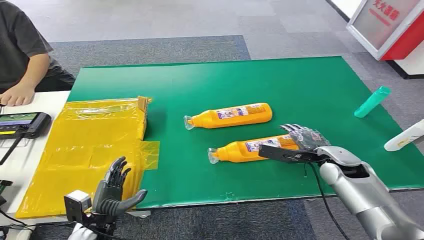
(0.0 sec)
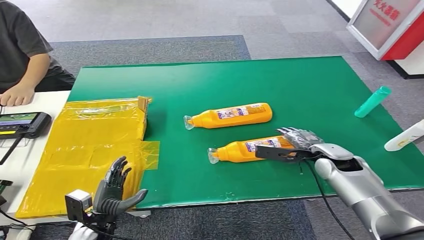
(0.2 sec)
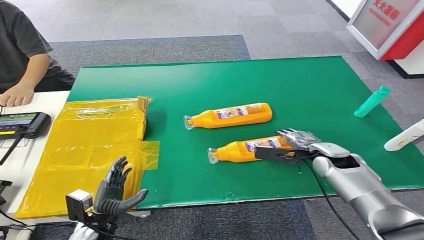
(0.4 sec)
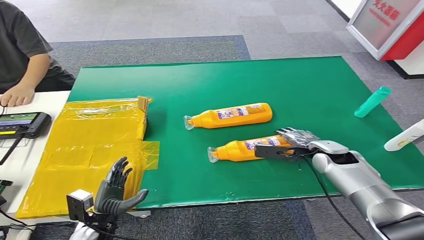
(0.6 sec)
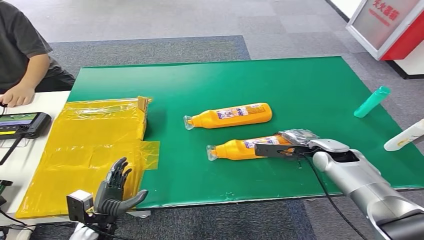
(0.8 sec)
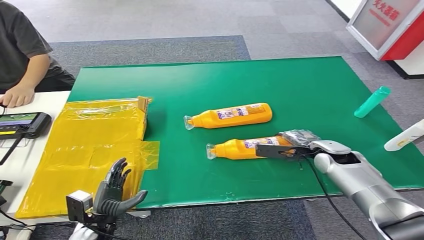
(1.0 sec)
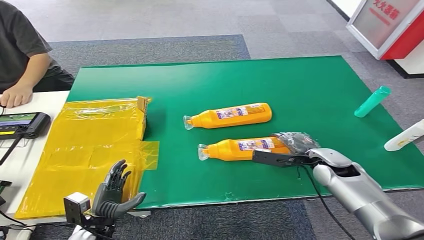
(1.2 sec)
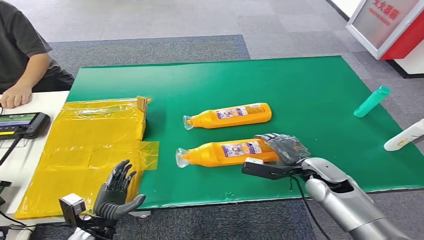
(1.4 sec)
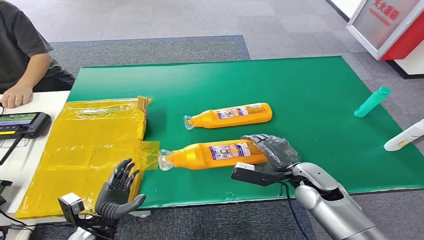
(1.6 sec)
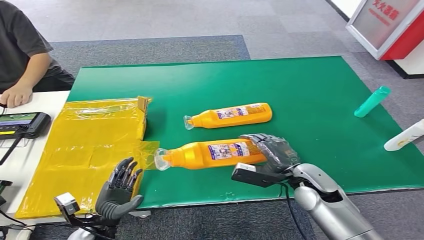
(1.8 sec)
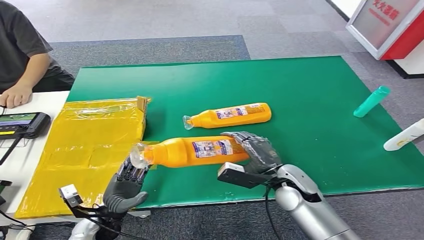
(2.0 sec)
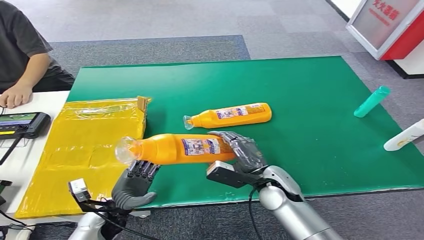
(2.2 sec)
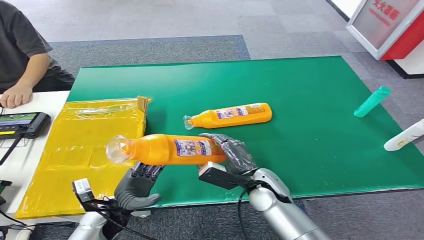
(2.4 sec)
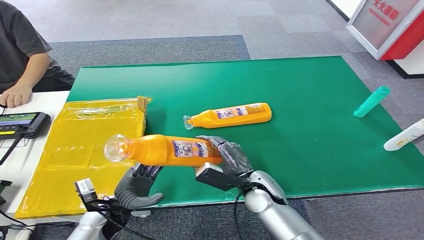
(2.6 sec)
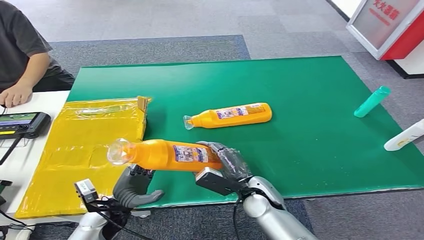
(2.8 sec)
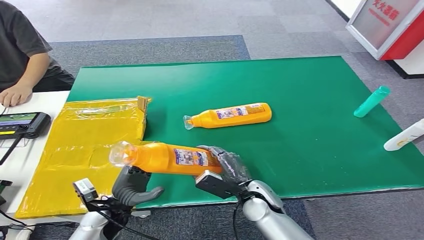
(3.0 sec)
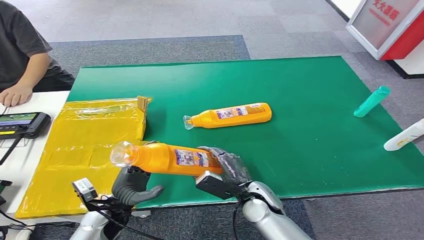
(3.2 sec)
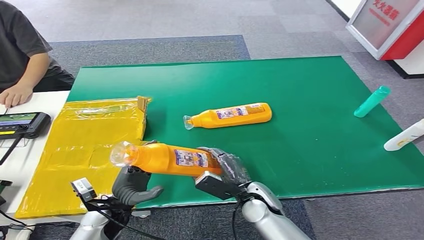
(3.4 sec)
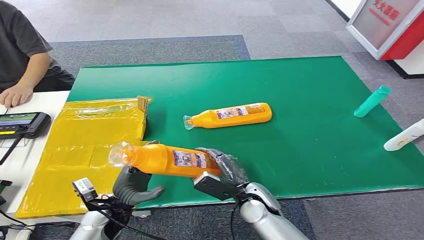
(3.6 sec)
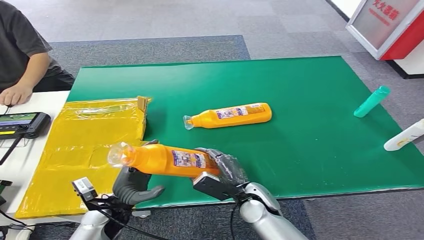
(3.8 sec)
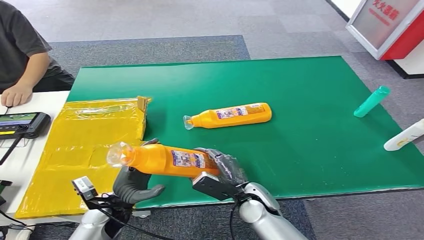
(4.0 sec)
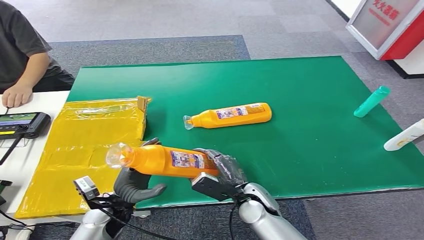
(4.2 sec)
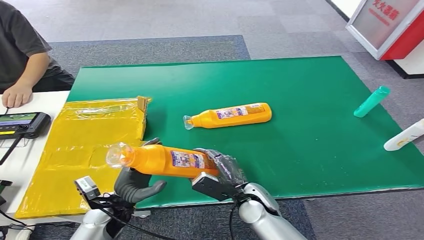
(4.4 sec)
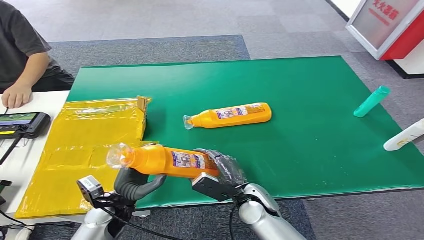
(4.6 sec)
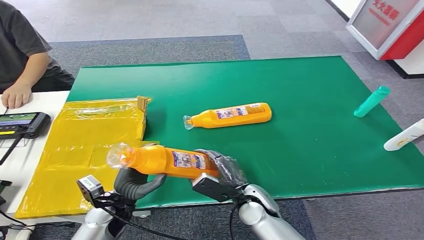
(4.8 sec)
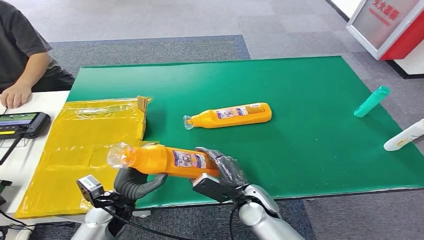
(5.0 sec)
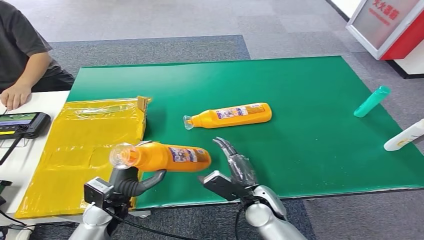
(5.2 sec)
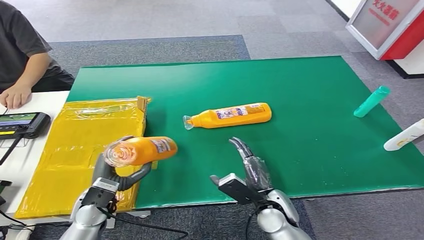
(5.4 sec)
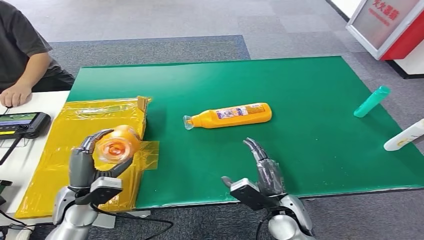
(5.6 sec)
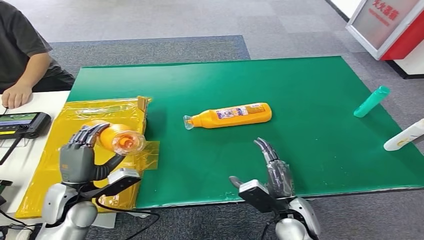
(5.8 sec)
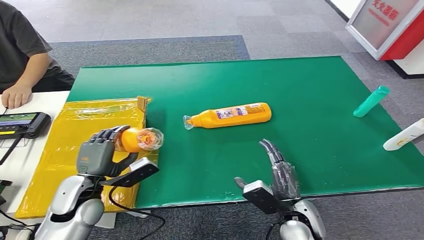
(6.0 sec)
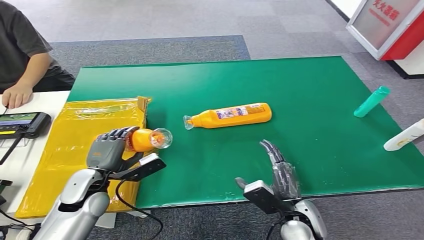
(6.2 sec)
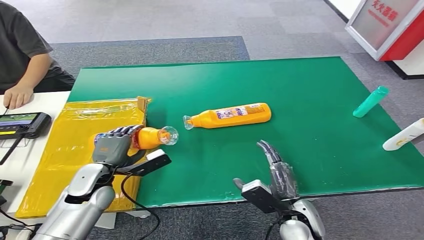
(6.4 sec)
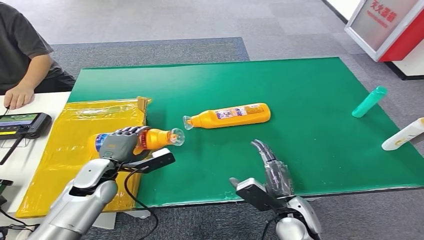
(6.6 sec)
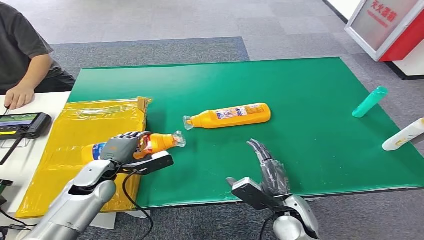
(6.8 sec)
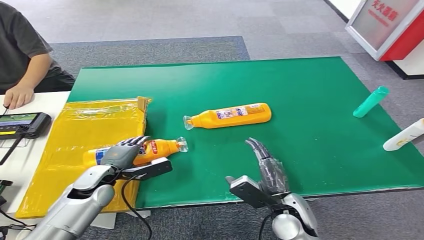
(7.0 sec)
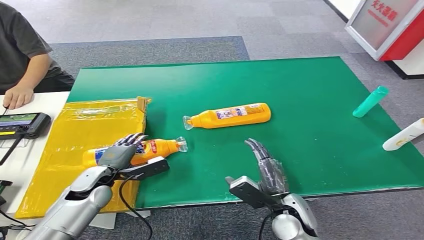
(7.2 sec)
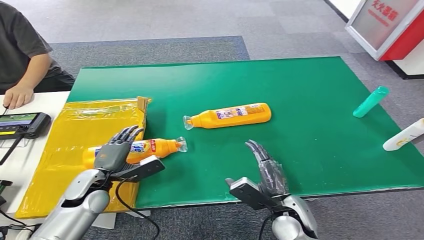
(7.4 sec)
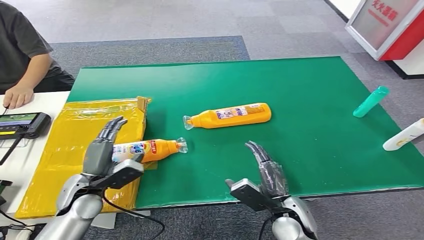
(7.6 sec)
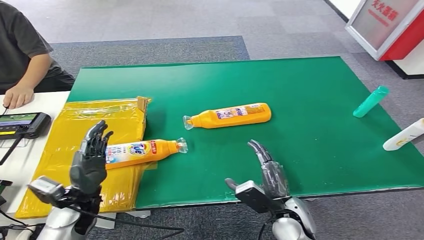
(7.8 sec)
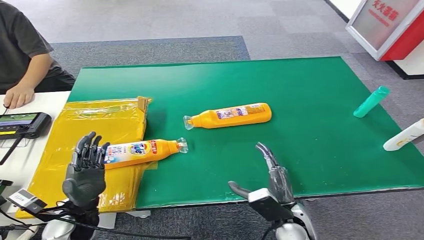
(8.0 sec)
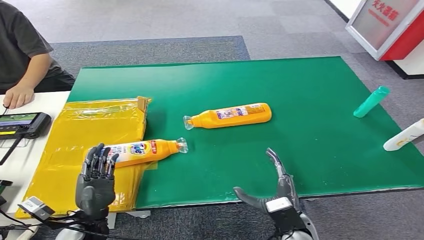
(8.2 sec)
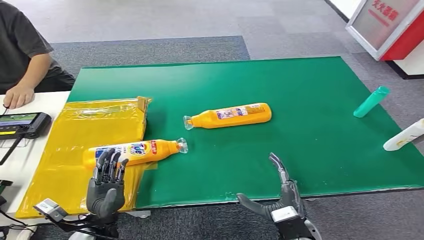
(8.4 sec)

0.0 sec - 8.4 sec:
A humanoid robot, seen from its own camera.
Step, 0.0 sec - 2.0 sec: Pick up the bottle from the table.
Step, 3.8 sec - 8.2 sec: Turn the bottle to the front side.
1.4 sec - 2.8 sec: The right hand heads to the left, covering about 15 cm; the left hand shifts by roughly 5 cm.
2.8 sec - 4.2 sec: There are only small adjustments of the hands.
4.2 sec - 5.6 sec: The right hand moves to the right, some 5 cm; the left hand travels to the left by approximately 5 cm.
5.6 sec - 7.0 sec: The left hand shifts approximately 5 cm forward.
7.0 sec - 8.4 sec: The left hand goes approximately 15 cm backward. The right hand heads backward, covering roughly 5 cm.

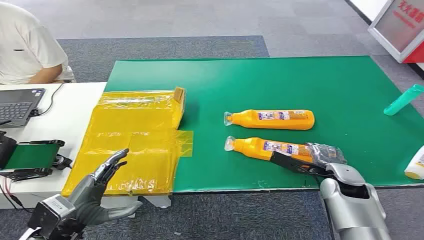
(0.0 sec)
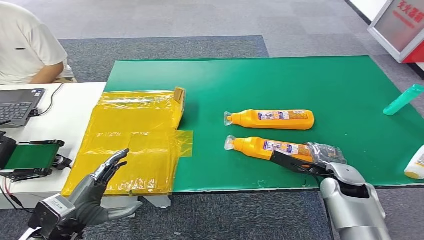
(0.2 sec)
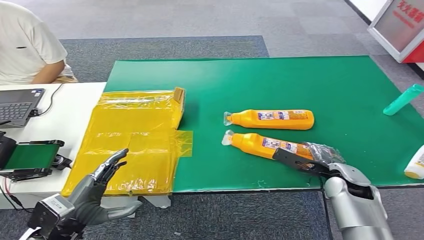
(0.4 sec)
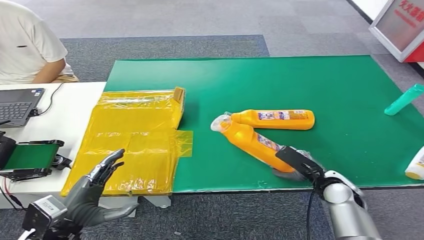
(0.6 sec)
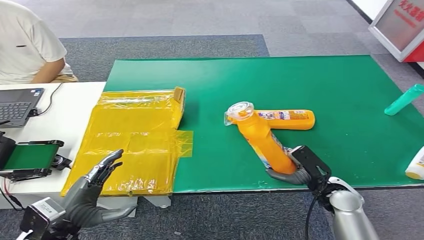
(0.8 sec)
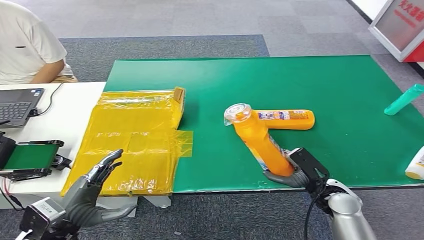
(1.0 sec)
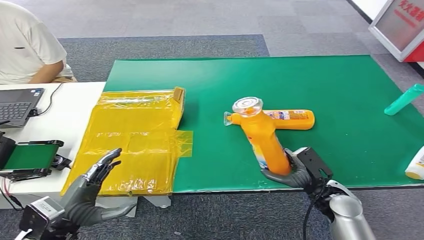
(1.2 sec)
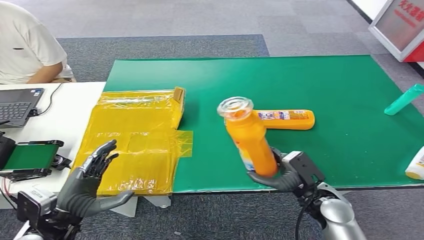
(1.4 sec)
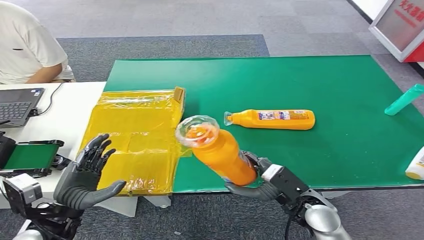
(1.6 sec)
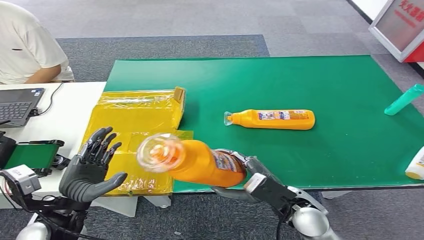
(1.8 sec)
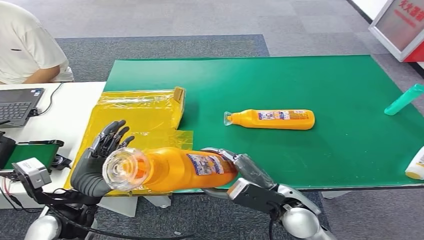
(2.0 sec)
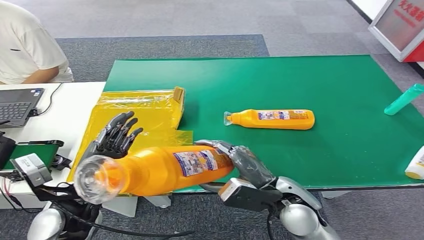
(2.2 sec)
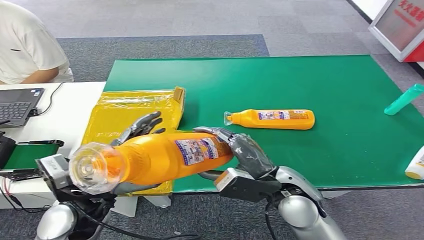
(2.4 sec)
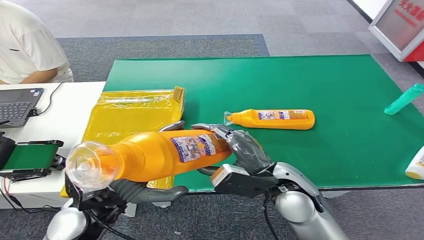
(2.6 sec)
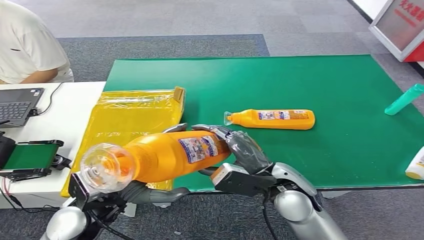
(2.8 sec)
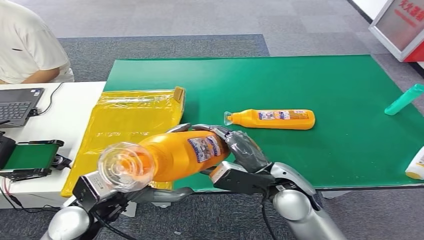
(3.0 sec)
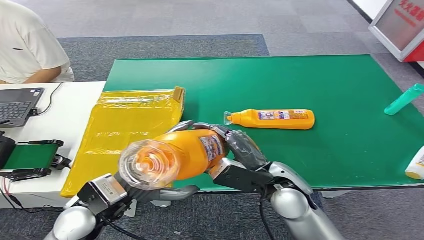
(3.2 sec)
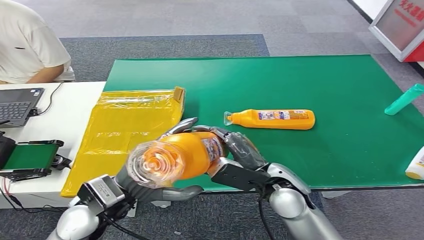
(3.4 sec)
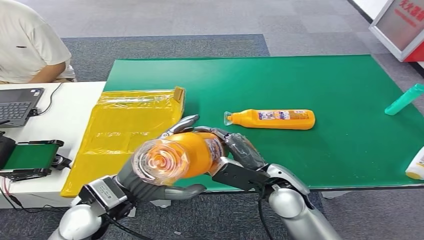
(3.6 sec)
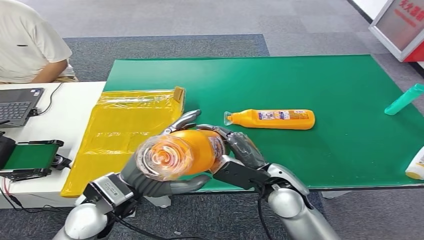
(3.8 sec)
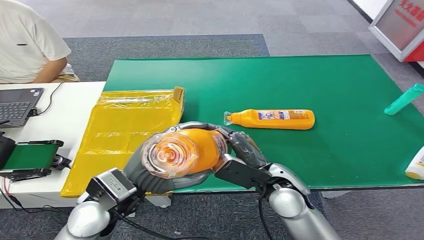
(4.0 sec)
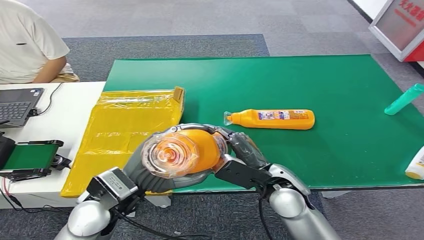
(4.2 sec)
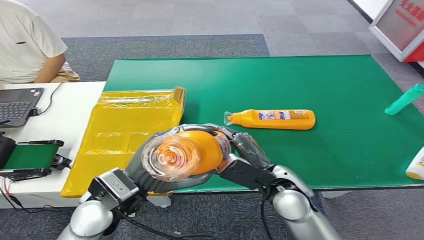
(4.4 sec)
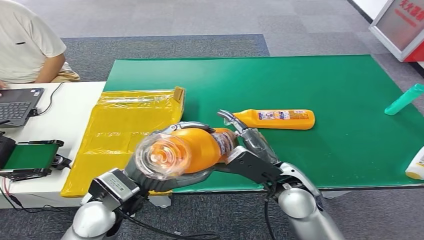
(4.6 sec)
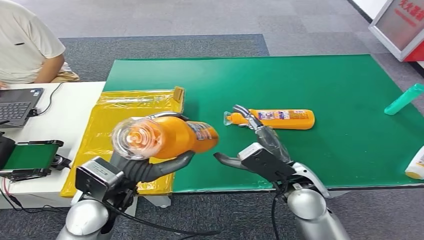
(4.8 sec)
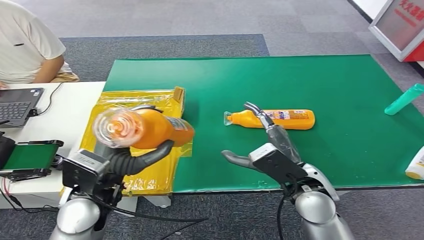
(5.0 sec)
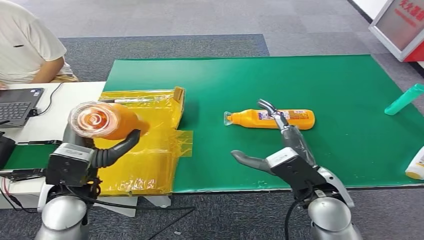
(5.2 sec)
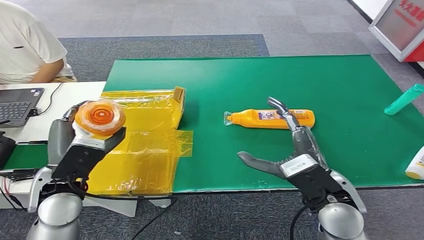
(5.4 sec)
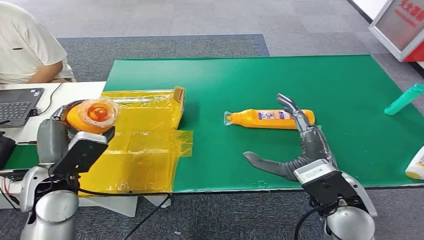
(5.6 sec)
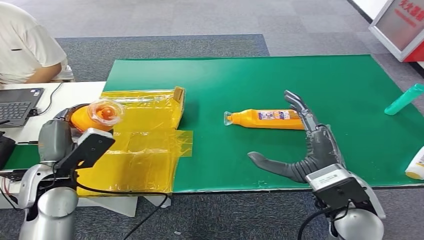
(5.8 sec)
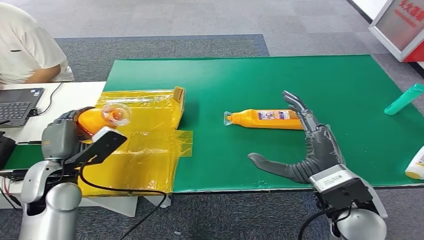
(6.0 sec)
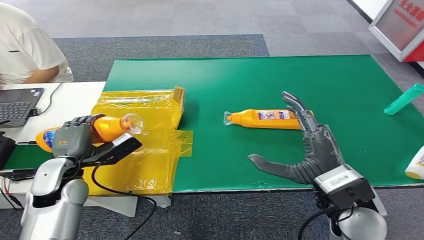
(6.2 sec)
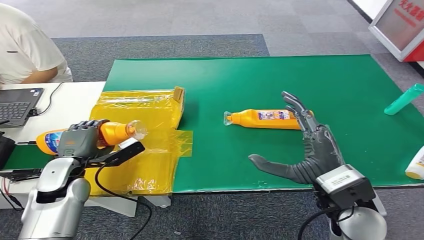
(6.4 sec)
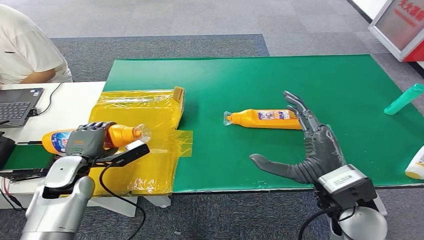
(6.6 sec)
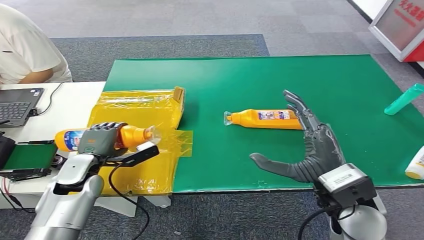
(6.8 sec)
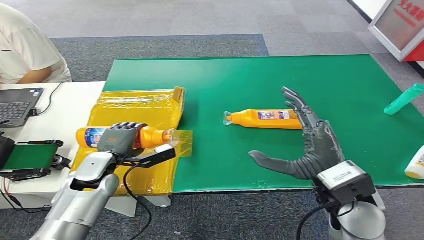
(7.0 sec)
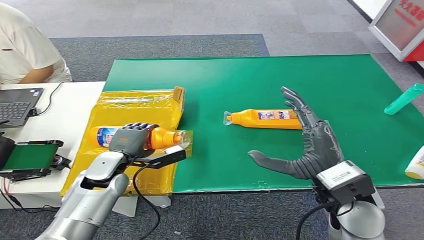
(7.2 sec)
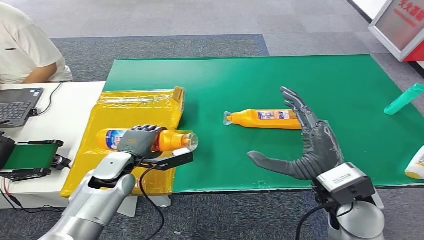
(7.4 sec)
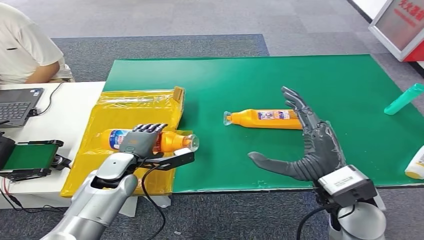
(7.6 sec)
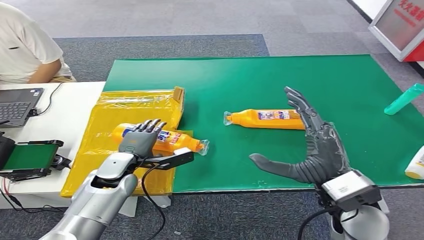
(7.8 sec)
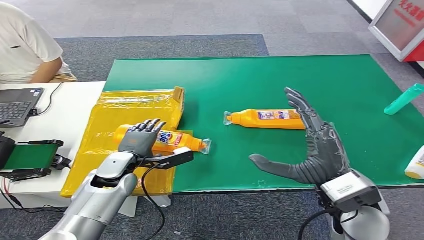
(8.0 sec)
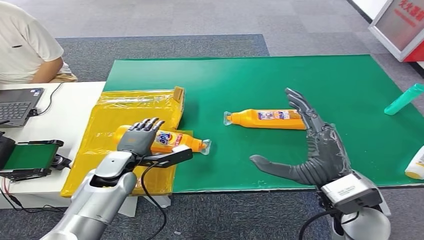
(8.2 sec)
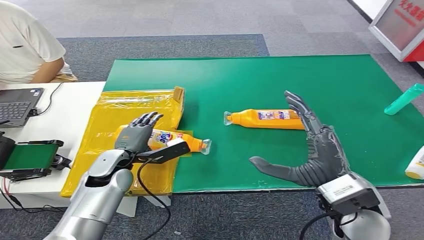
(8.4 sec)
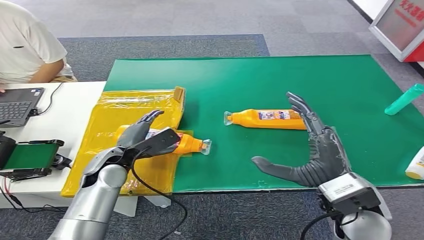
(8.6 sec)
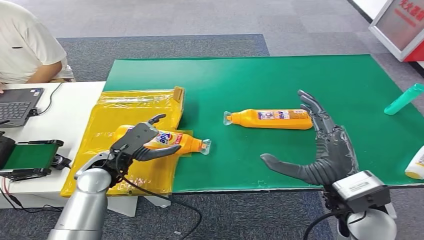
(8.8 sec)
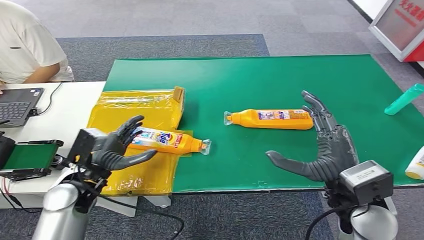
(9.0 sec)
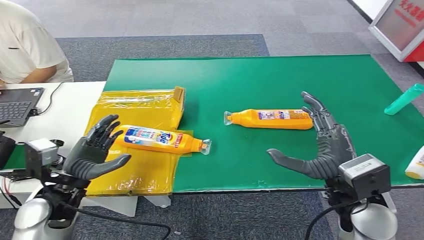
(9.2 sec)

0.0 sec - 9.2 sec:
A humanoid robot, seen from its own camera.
Step, 0.0 sec - 3.0 sec: Pick up the bottle from the table.
Step, 4.8 sec - 9.2 sec: Turn the bottle to the front side.
1.6 sec - 3.0 sec: The left hand travels to the right and upward by roughly 10 cm. The right hand moves upward and to the left, some 10 cm.
3.0 sec - 4.6 sec: The left hand changes place by roughly 5 cm.
6.2 sec - 7.6 sec: The left hand moves to the right and downward, about 10 cm.
7.6 sec - 9.2 sec: The left hand shifts approximately 15 cm backward, to the left and upward.
